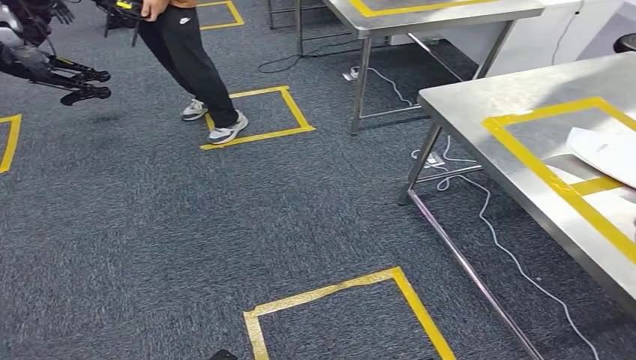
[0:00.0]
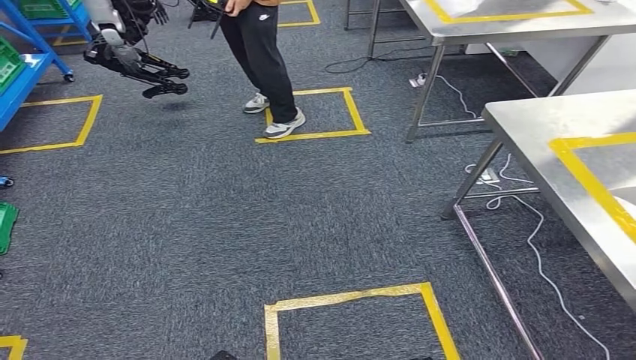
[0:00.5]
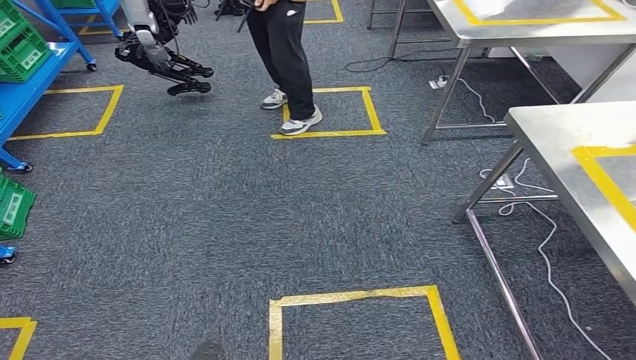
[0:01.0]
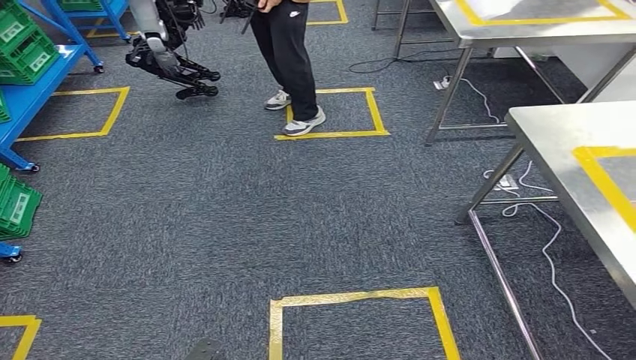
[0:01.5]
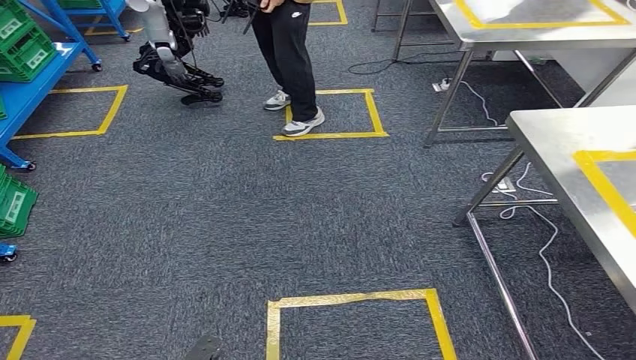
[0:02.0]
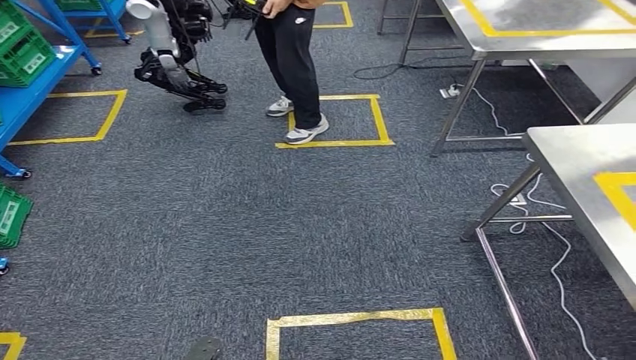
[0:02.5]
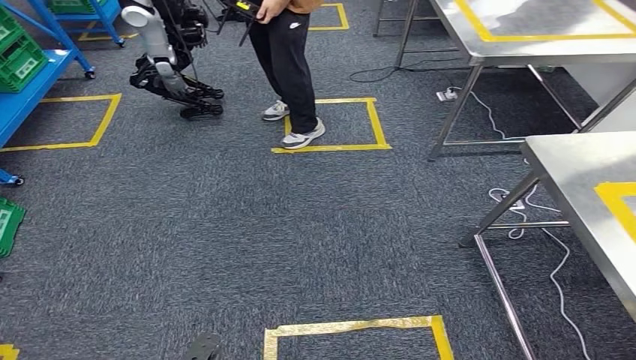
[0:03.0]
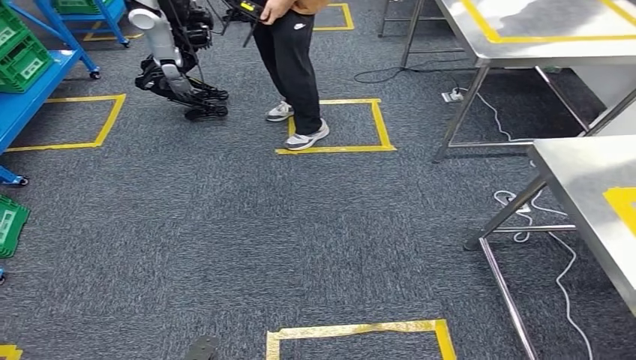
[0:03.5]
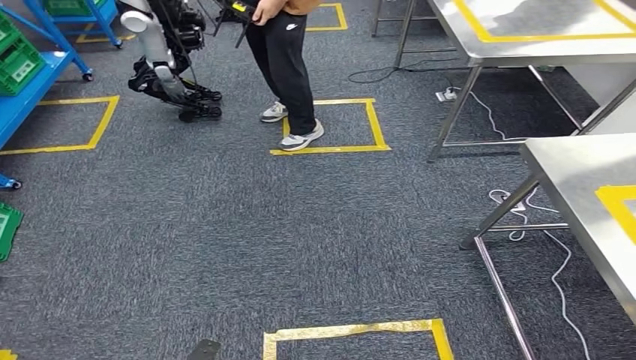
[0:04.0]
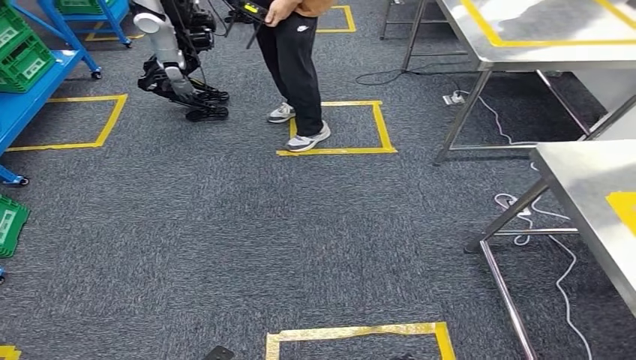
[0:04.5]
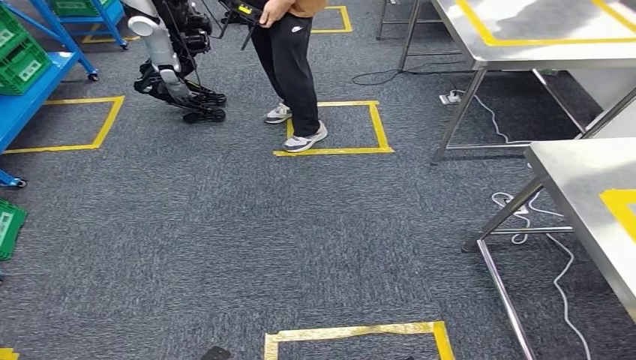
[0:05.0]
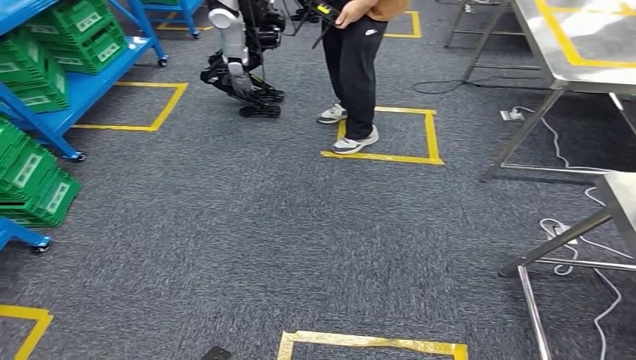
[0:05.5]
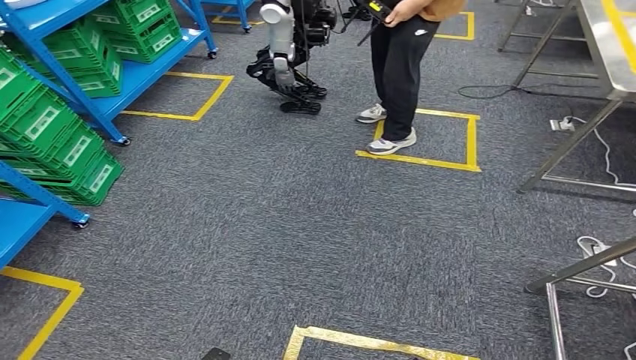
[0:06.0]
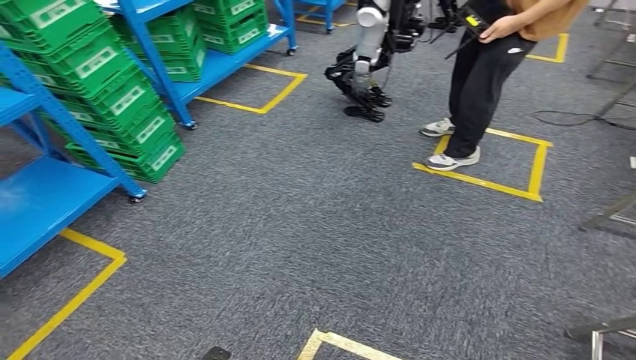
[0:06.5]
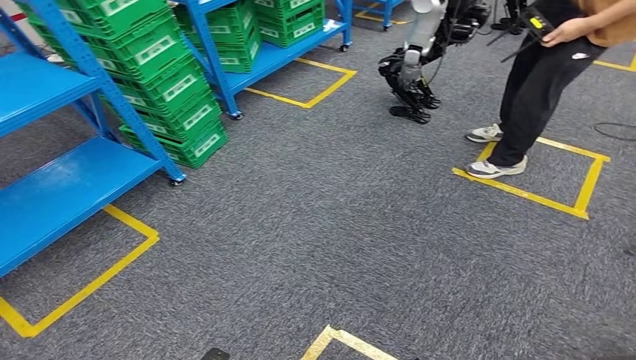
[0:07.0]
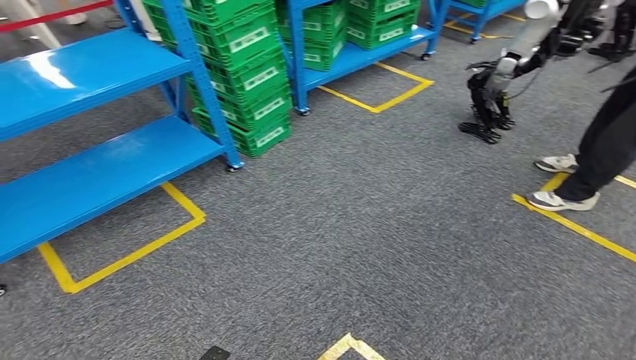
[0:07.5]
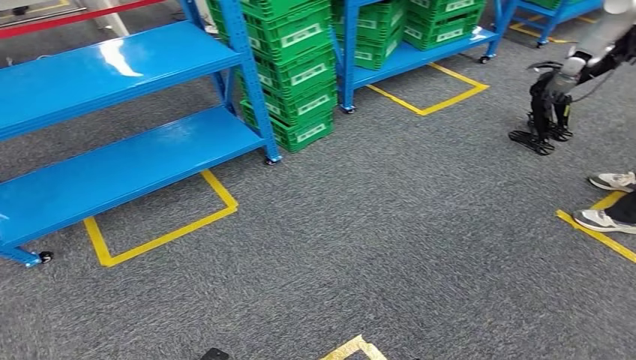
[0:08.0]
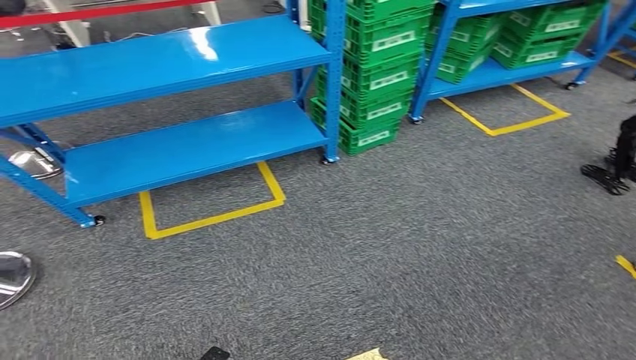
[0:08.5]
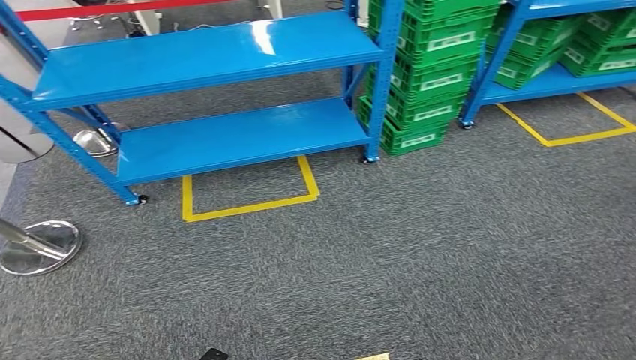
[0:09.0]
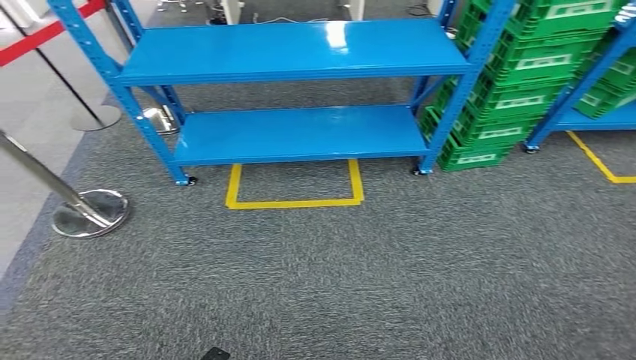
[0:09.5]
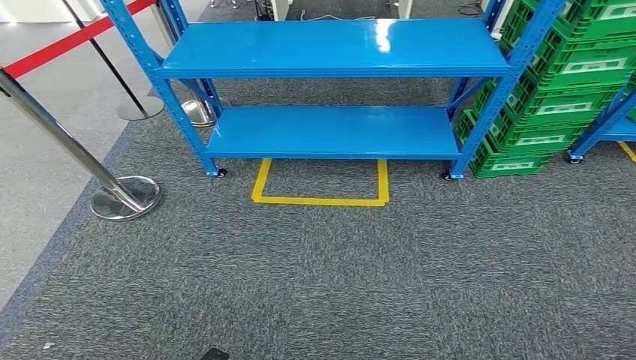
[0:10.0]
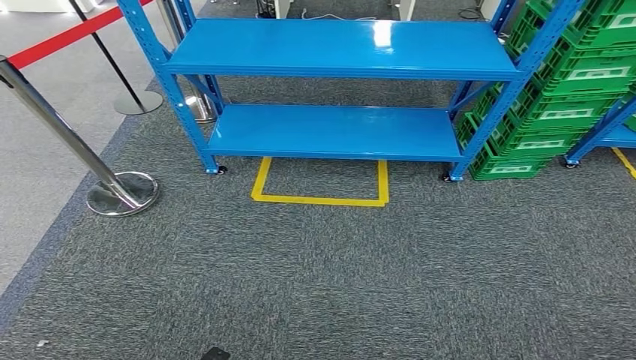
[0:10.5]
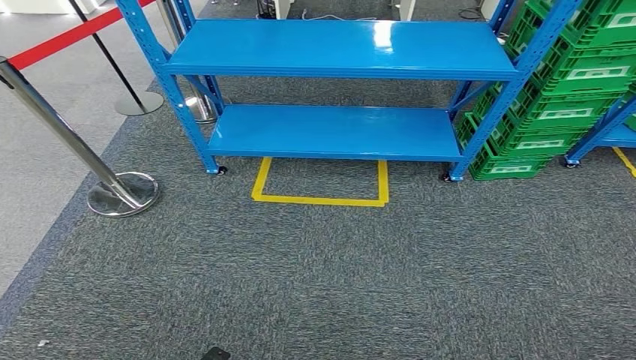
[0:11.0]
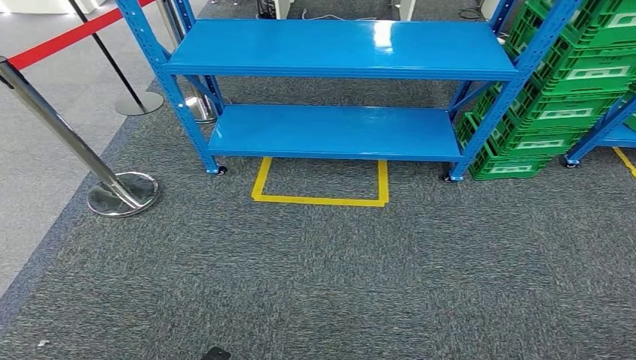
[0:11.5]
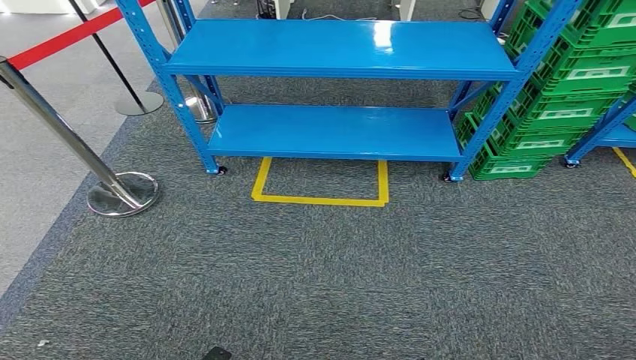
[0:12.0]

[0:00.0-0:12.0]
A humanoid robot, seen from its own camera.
0:10.0 to 0:12.0: The two hands keep their place.
